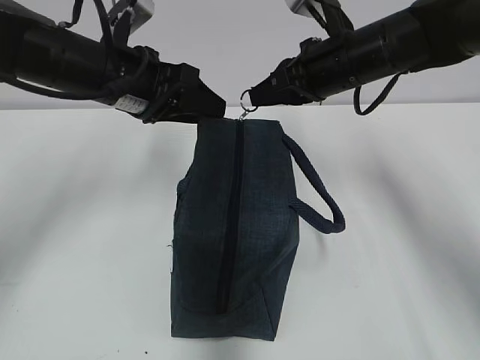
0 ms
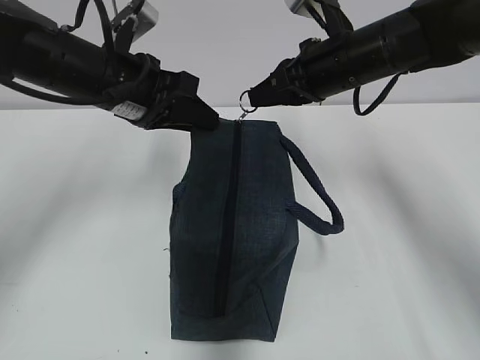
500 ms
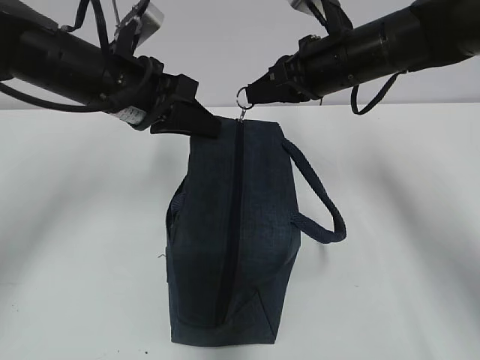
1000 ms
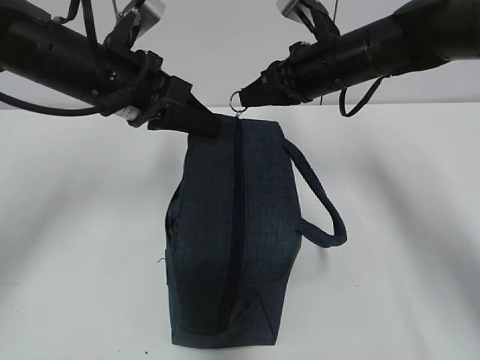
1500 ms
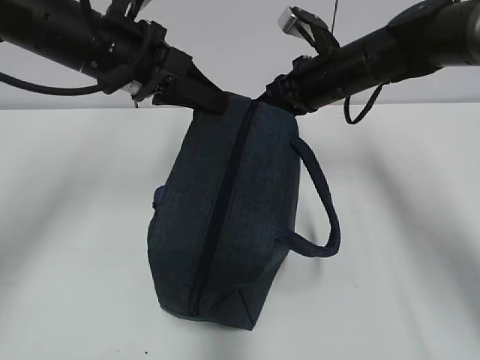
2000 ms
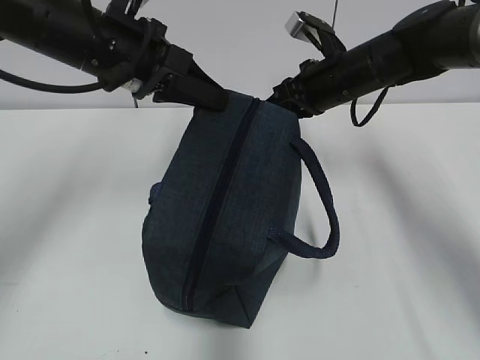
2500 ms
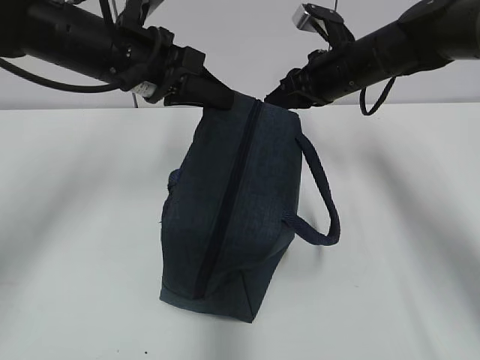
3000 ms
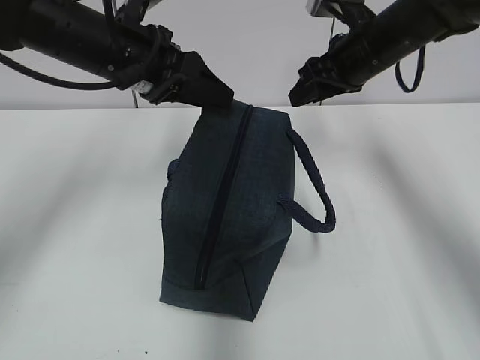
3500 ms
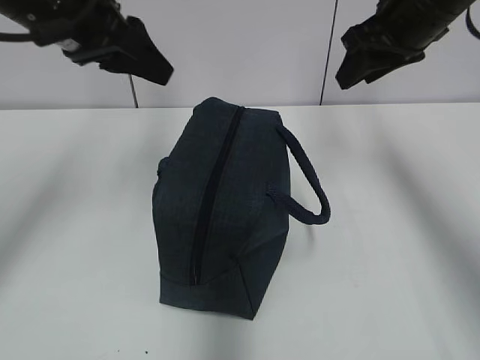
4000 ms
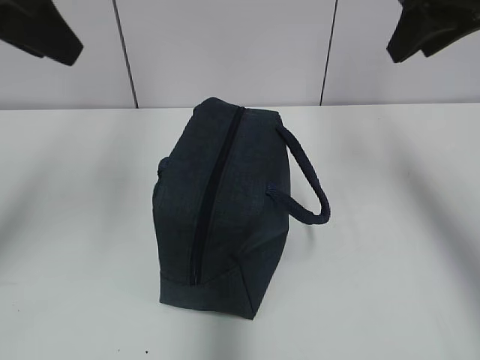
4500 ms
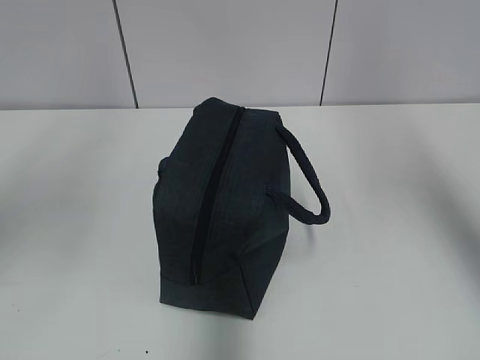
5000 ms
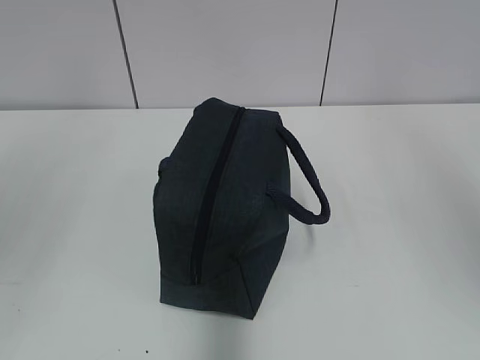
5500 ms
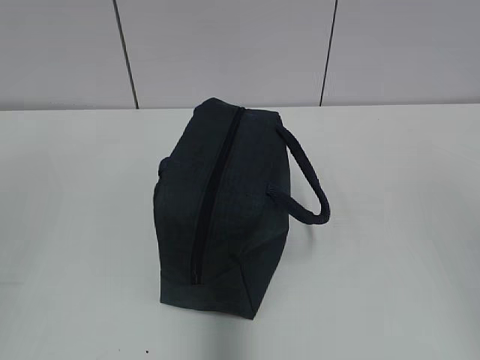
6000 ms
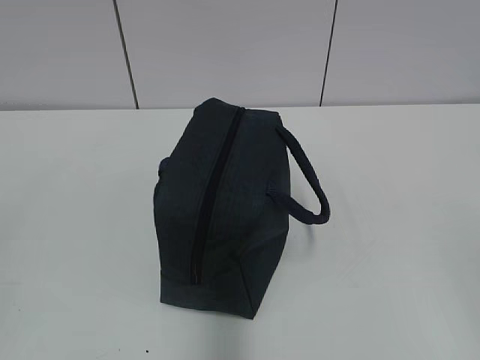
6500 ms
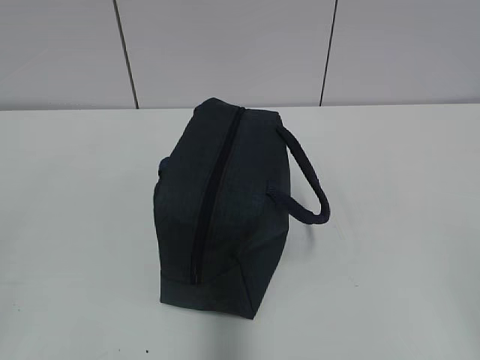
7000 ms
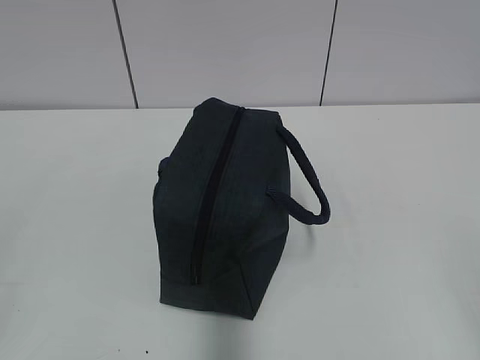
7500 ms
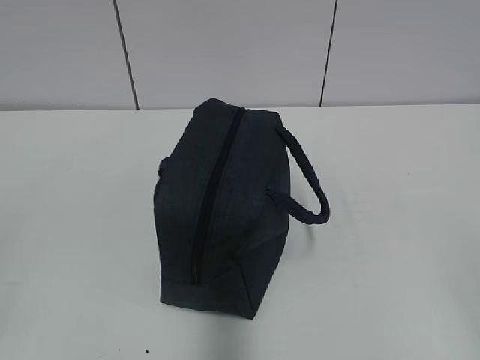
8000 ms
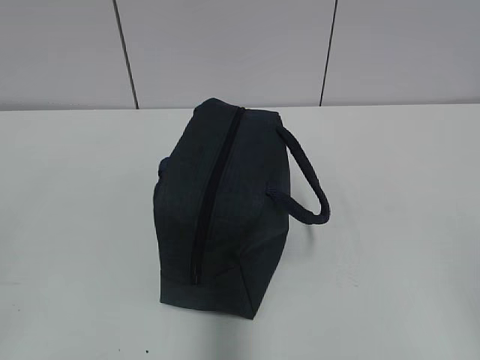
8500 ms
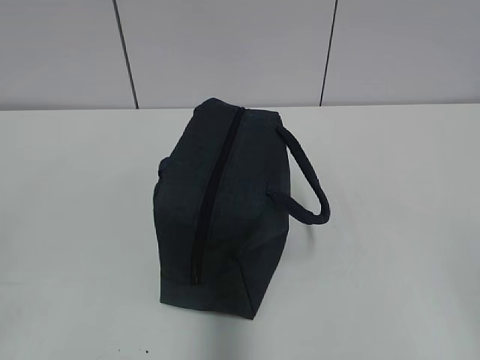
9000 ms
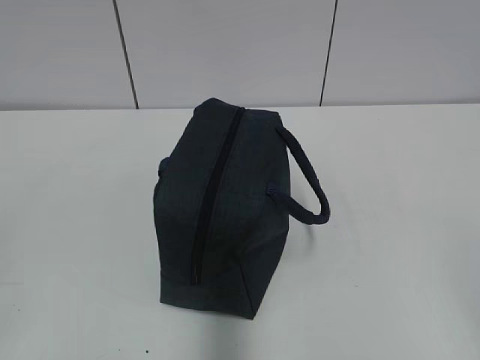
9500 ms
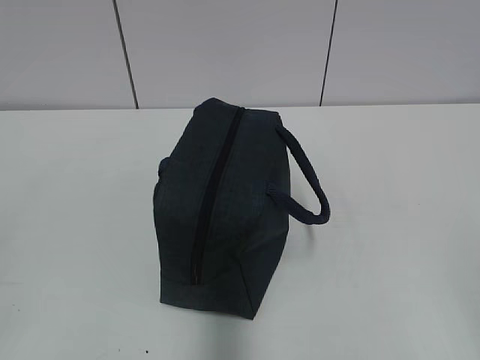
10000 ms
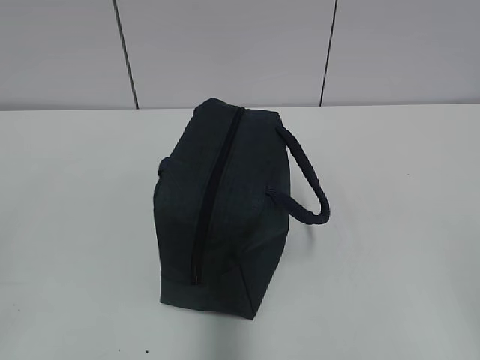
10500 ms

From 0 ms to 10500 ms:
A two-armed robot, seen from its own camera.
Step, from 0 ms to 2500 ms: Pull the zipper with your right hand.
Step, from 3000 ms to 3500 ms: Grab the lunch bag with your left hand.
From 0 ms to 2000 ms: The left gripper closes.
From 2000 ms to 4000 ms: The right gripper heads upward and to the right, covering roughly 10 cm, and opens its fingers. Meanwhile the left gripper moves roughly 5 cm, and opens.
From 4000 ms to 6500 ms: The left gripper heads backward and to the left, covering about 40 cm; the right gripper heads backward, covering roughly 40 cm.
From 8500 ms to 10500 ms: Both grippers stay put.
